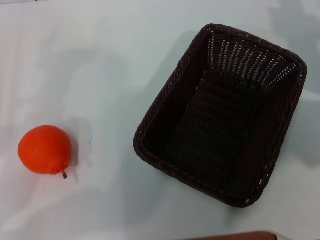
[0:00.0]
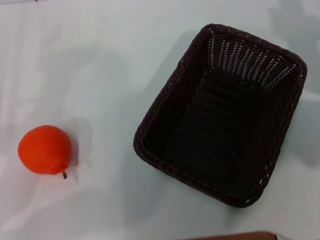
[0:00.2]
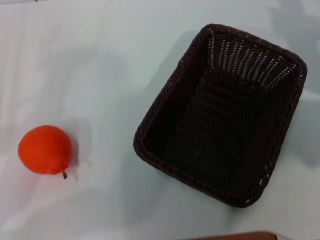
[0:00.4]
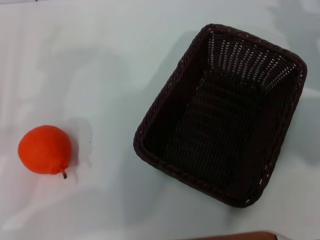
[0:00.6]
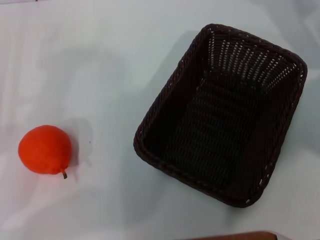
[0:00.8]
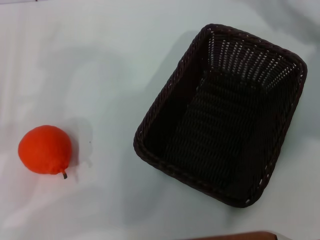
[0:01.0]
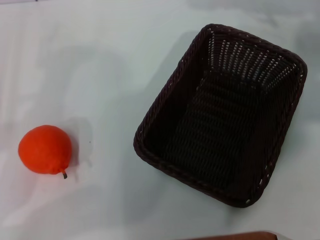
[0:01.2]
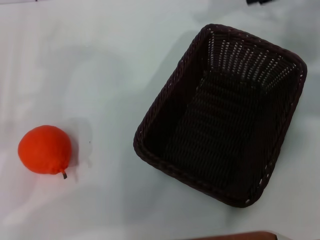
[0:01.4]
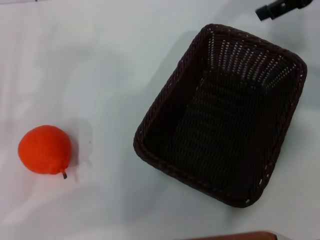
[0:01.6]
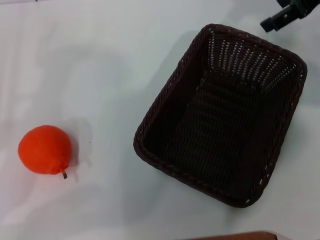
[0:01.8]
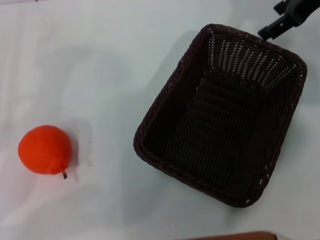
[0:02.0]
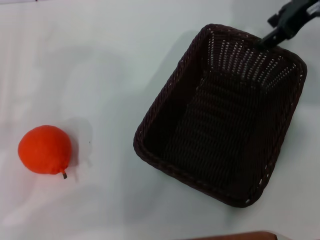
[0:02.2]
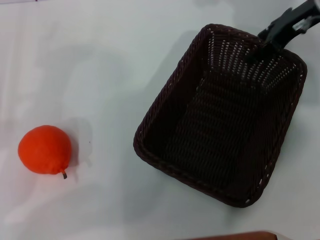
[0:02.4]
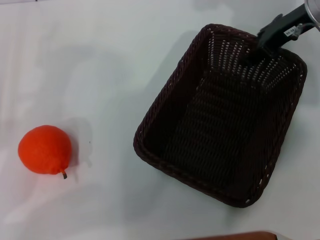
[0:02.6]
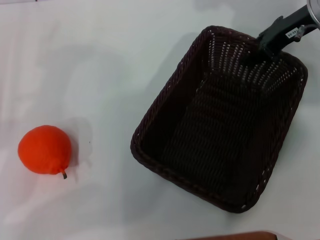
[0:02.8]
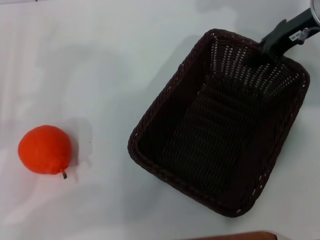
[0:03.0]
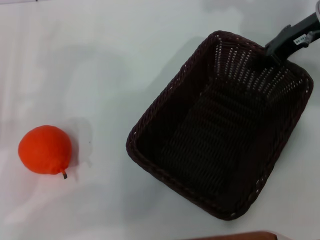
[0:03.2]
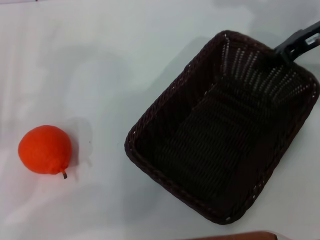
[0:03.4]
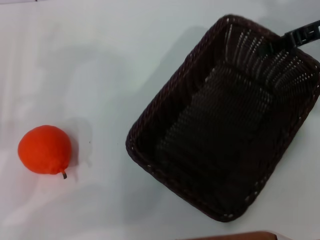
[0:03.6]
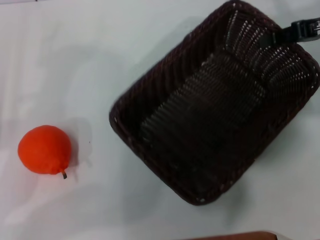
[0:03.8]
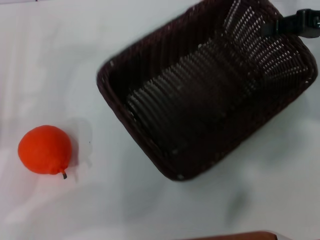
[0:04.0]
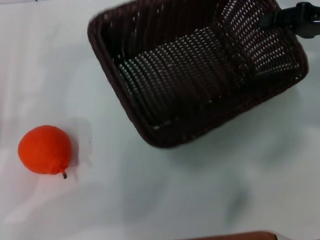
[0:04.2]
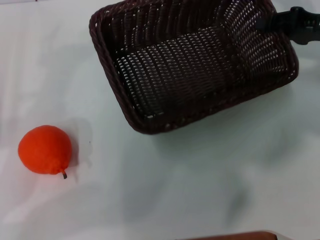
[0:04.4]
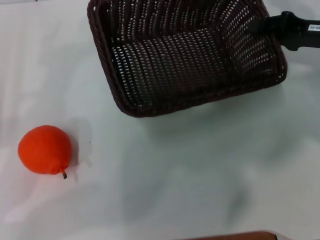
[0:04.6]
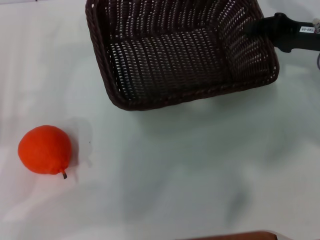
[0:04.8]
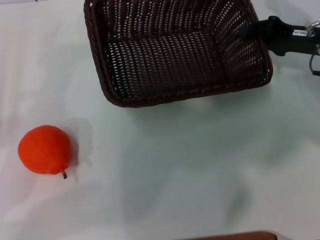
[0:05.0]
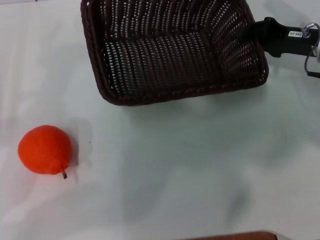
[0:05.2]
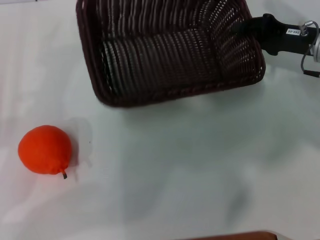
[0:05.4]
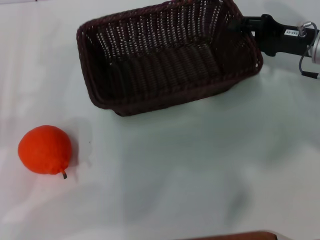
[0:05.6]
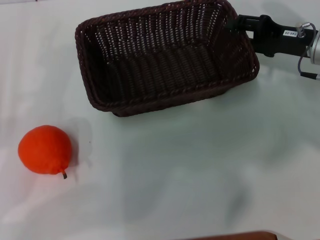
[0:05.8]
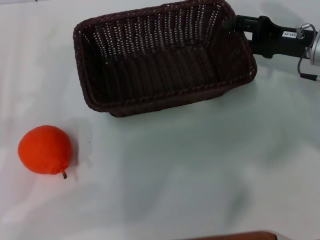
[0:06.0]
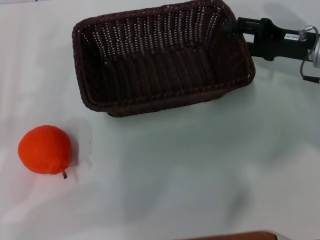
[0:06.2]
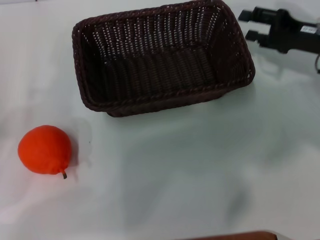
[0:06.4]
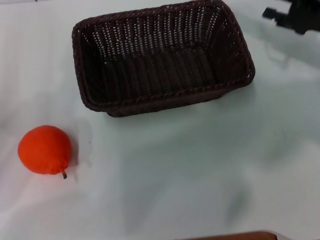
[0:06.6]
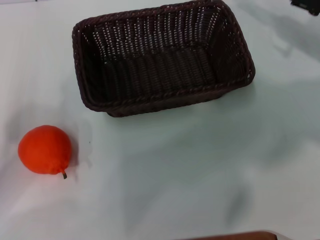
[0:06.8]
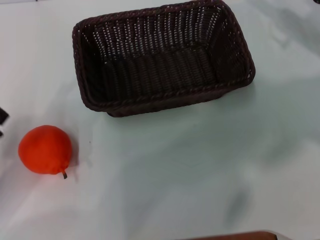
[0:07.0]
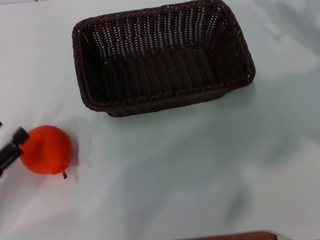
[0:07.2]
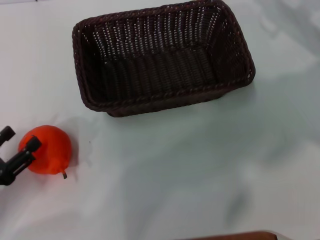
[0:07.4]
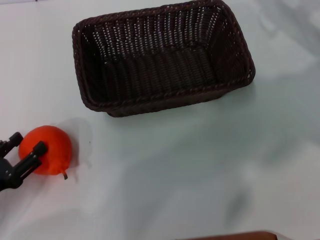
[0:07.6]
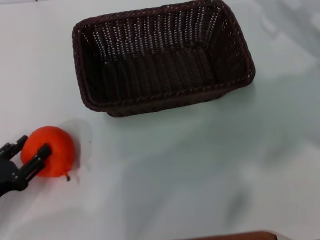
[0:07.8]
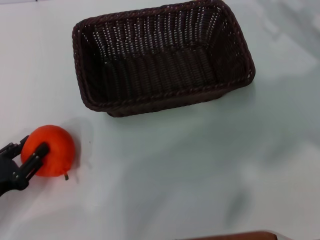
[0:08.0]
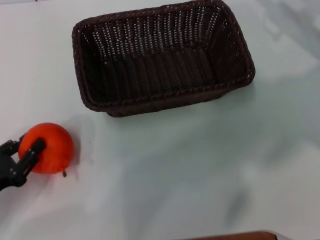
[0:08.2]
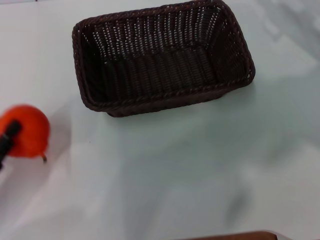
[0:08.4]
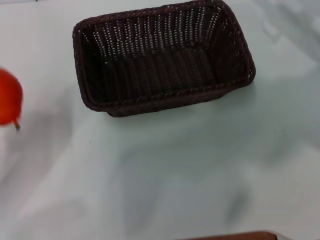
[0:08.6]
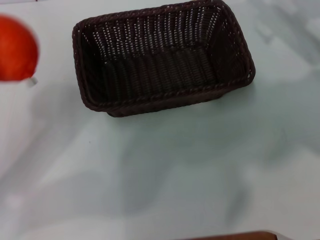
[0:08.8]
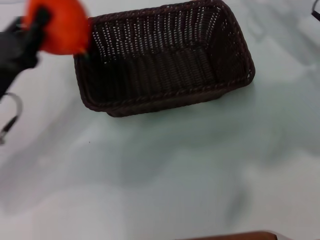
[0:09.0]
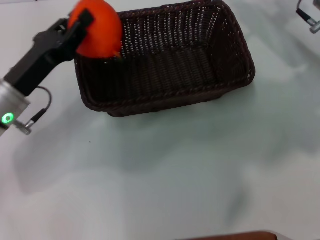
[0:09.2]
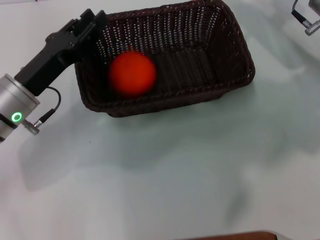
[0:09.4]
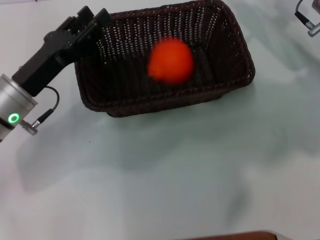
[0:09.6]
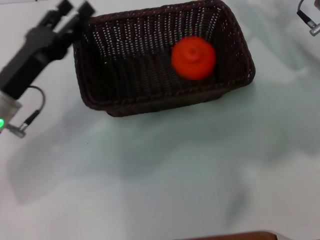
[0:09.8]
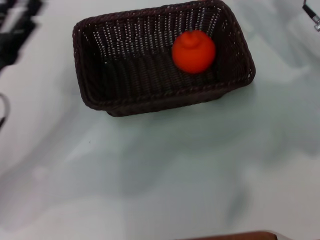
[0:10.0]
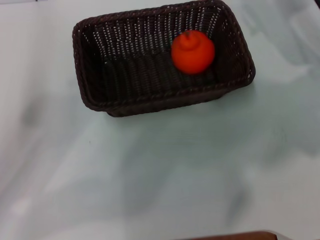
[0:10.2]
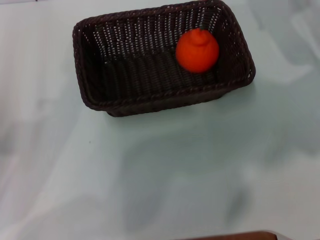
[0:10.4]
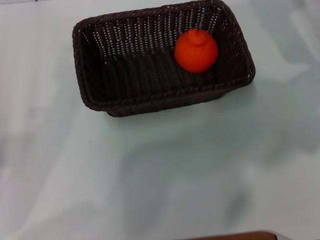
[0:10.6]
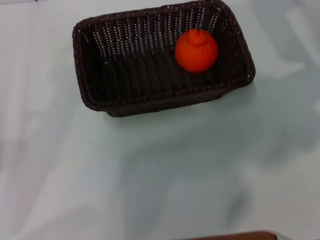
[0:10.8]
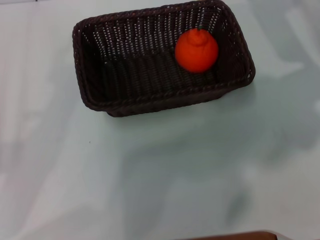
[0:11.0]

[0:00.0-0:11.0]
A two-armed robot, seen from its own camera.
Task of the whole recording: the right gripper pick up the black basket and place it horizontally in the middle of the table, the left gripper pick up the orange and place it into the black basket.
Step, 0:00.0 to 0:03.4: Pick up the dark basket with the right gripper.
Step, 0:03.6 to 0:06.4: Place the dark basket in the center of view with the right gripper.
Step, 0:06.6 to 0:08.2: Pick up the orange with the left gripper.
Step, 0:08.6 to 0:09.6: Place the orange into the dark basket with the left gripper.
0:00.0 to 0:01.6: The right gripper heads upward, covering roughly 15 cm.
0:01.6 to 0:03.2: The right gripper shifts some 10 cm downward, and closes its fingers.
0:03.2 to 0:04.8: The right gripper travels downward by some 5 cm.
0:04.8 to 0:06.2: The right gripper opens.
0:06.2 to 0:07.8: The right gripper shifts by about 5 cm; the left gripper travels downward by roughly 5 cm.
0:07.8 to 0:09.4: The left gripper heads forward, to the right and upward, covering roughly 20 cm, and closes its fingers; the right gripper goes some 5 cm to the left.
0:09.4 to 0:11.0: The left gripper is displaced backward and to the left by about 20 cm, and opens its fingers.
